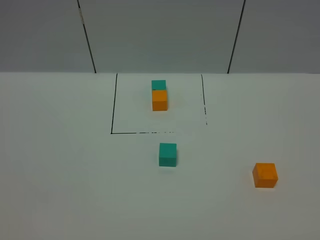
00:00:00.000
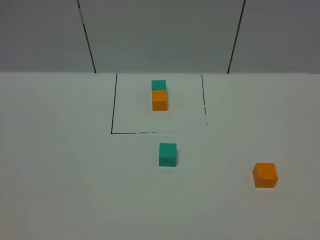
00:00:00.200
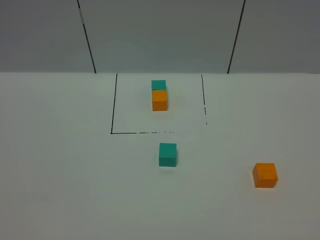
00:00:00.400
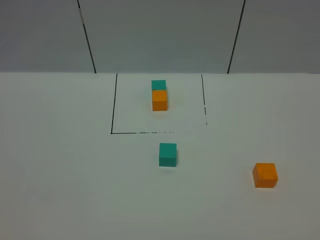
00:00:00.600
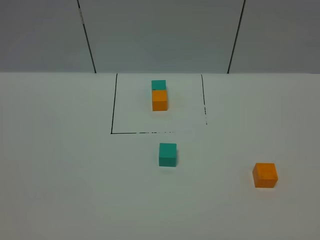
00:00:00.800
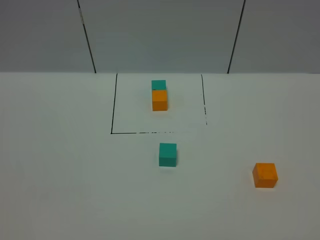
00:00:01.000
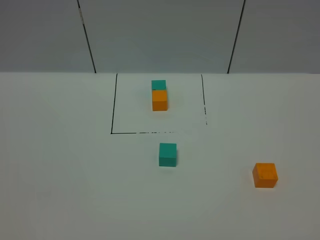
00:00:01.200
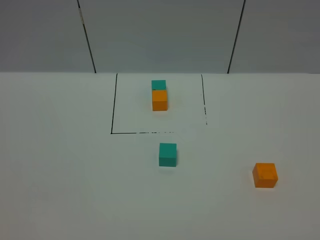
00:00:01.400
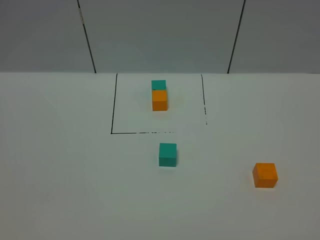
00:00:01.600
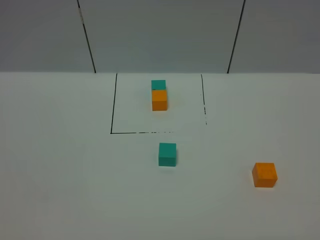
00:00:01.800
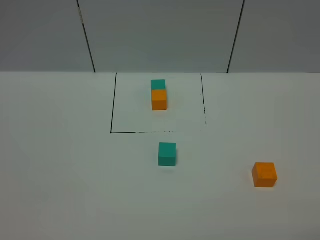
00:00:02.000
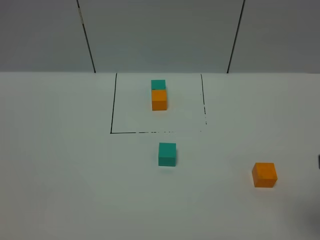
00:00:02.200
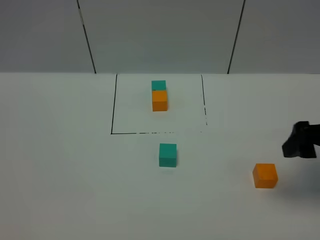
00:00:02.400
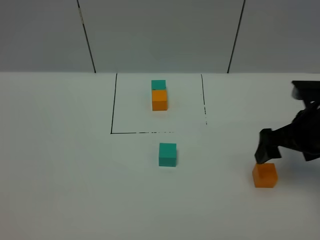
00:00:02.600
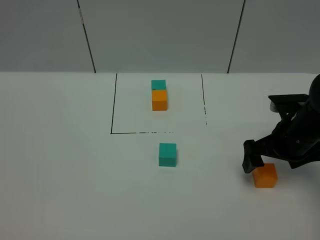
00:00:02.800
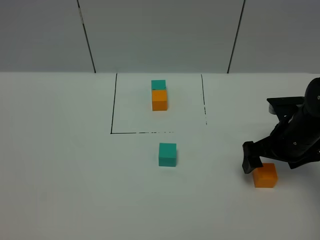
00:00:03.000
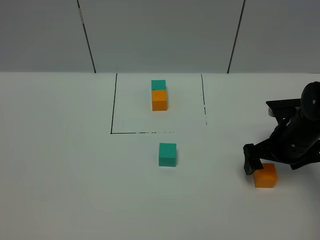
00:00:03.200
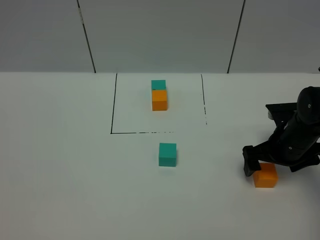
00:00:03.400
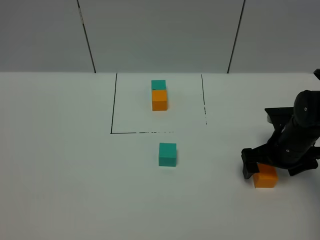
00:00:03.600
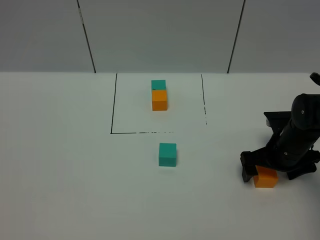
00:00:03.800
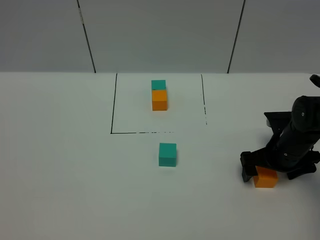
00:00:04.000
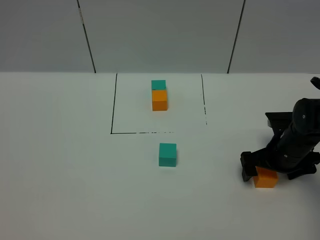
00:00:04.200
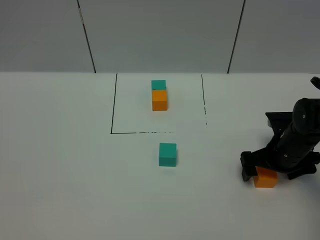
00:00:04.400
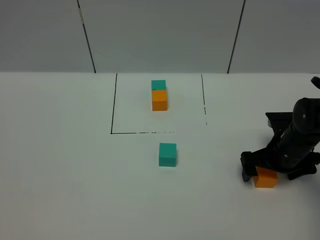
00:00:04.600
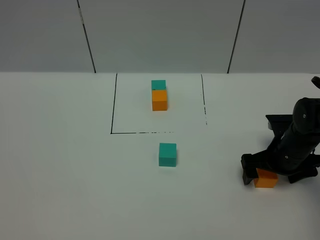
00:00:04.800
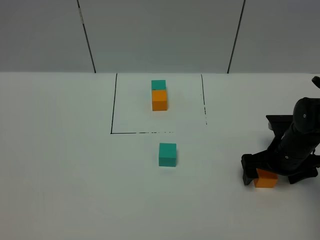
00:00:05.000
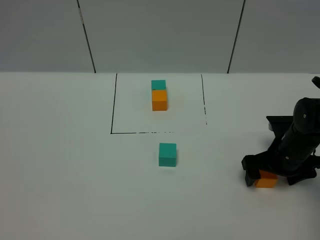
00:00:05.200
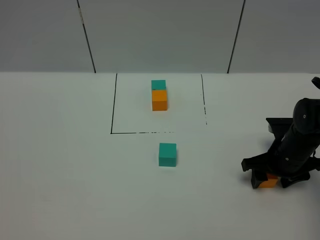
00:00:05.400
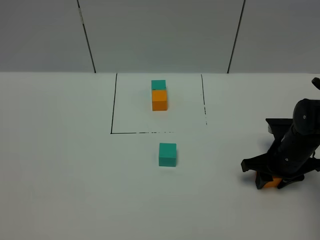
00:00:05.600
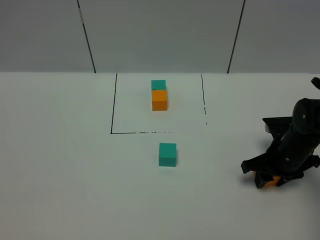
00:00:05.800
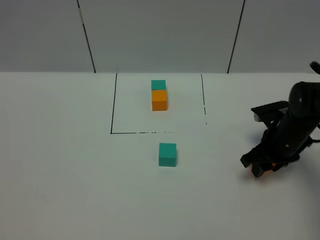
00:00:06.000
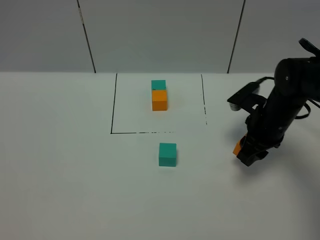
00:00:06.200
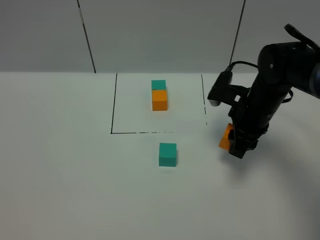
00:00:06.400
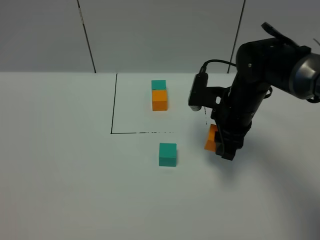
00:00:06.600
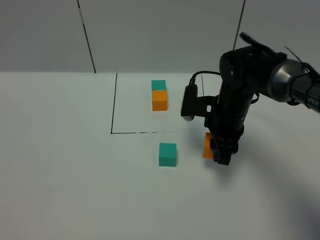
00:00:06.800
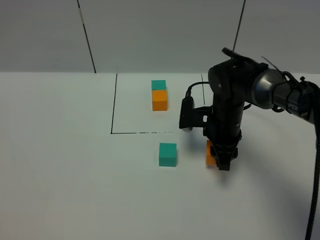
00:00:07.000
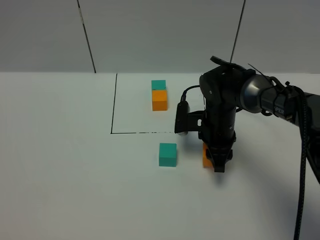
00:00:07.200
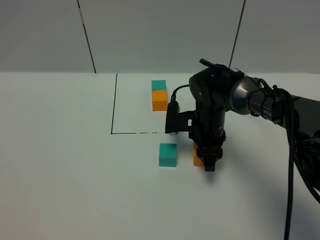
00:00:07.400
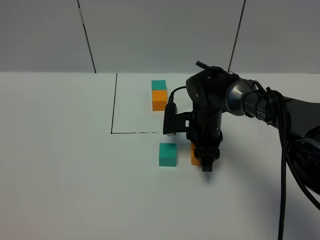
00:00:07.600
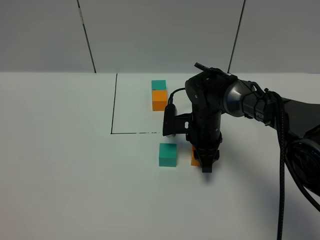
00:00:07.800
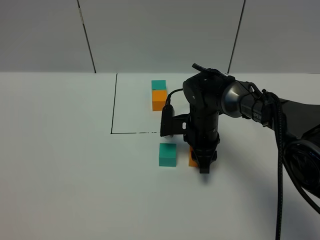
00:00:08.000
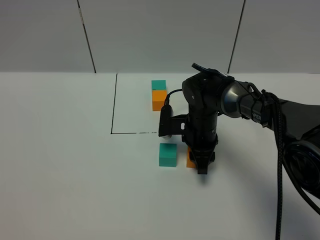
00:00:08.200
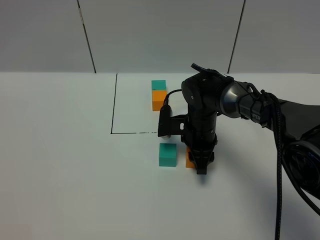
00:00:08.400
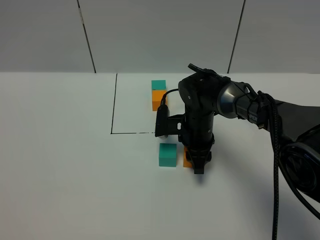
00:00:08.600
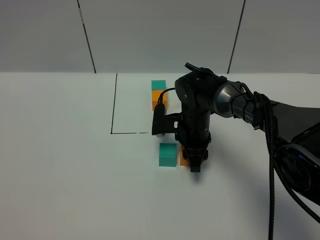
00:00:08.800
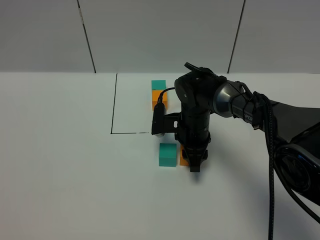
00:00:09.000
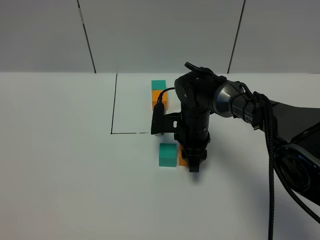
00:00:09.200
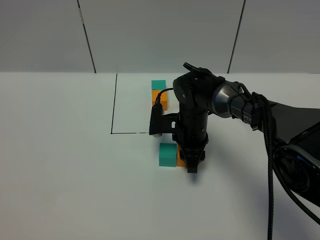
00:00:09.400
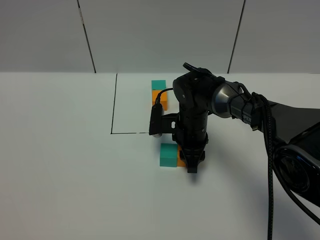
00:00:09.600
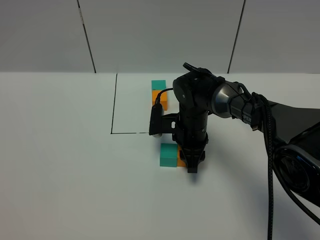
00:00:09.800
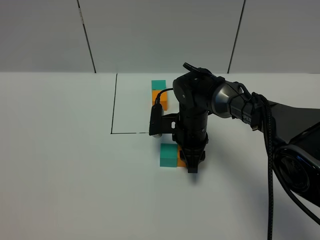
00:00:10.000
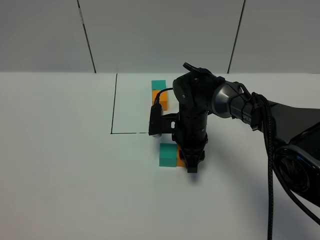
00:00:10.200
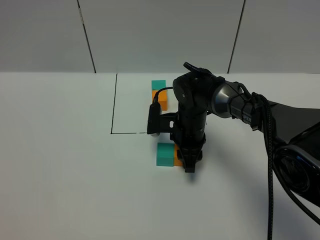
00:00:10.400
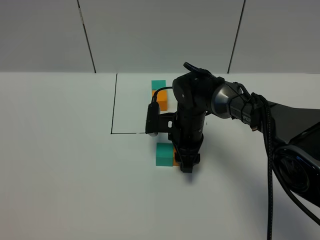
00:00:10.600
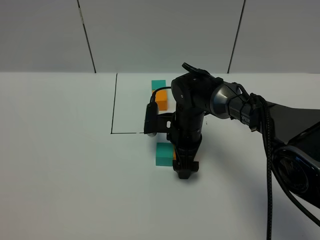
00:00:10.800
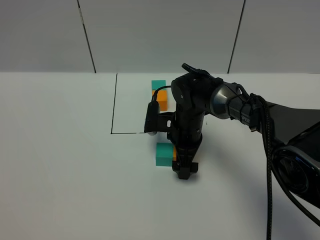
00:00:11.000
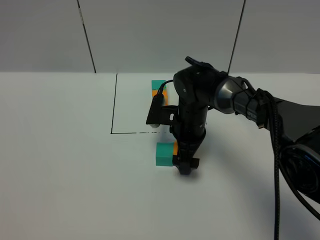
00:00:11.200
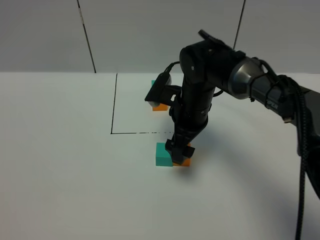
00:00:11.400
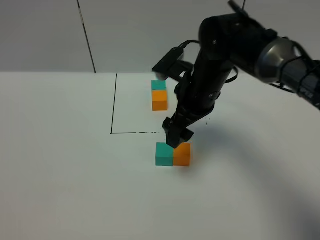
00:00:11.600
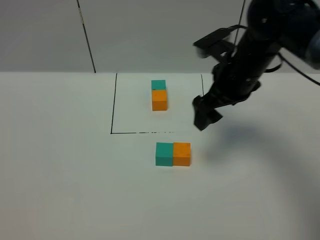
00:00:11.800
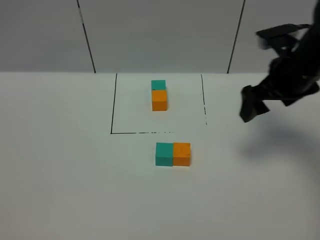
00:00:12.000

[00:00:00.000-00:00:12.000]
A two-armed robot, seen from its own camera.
Task of the whole recording: According to the building block template in front, assemble the scattered blocks together.
Step, 00:00:00.000 to 00:00:11.400: Put the orange cube on the right of the green cube.
00:00:00.000 to 00:00:01.600: The two grippers keep their place.
00:00:01.600 to 00:00:03.000: The right gripper goes about 35 cm forward.
00:00:03.000 to 00:00:04.400: The right gripper travels downward by approximately 5 cm.
00:00:04.400 to 00:00:06.000: The right gripper closes.
00:00:06.000 to 00:00:07.600: The right gripper moves to the left, some 15 cm.
00:00:07.600 to 00:00:09.000: The grippers stay close to where they were, moving slightly.
00:00:09.000 to 00:00:10.400: Neither gripper changes place.
00:00:10.400 to 00:00:12.000: The right gripper moves to the right and upward, roughly 25 cm, and opens.

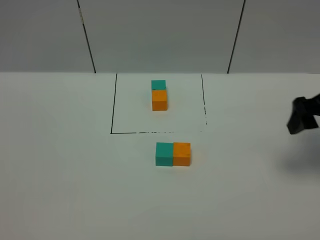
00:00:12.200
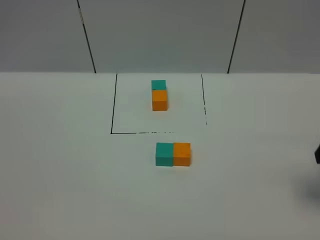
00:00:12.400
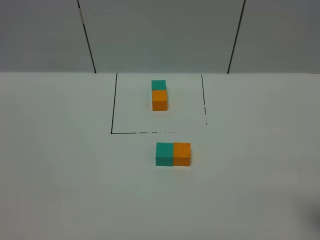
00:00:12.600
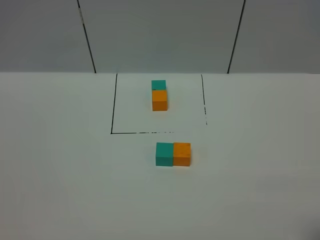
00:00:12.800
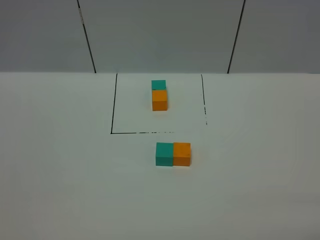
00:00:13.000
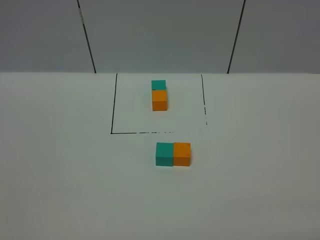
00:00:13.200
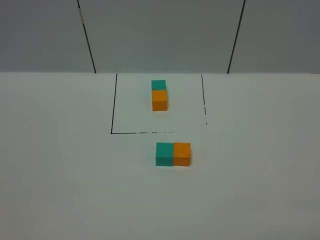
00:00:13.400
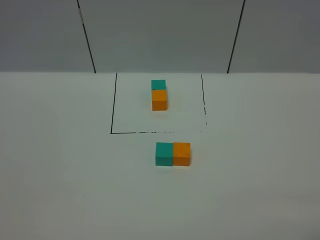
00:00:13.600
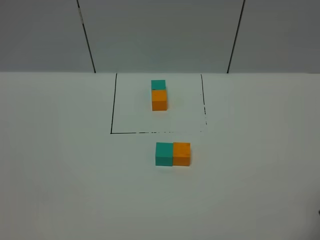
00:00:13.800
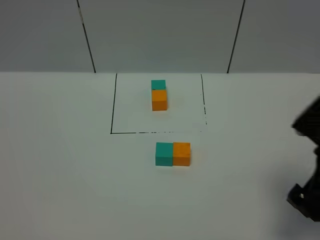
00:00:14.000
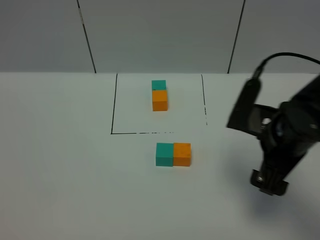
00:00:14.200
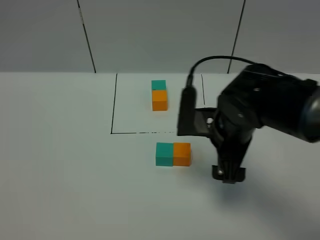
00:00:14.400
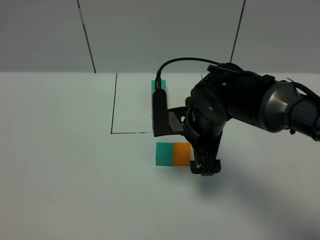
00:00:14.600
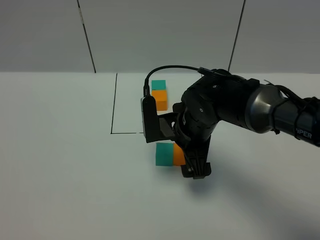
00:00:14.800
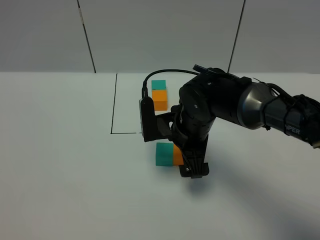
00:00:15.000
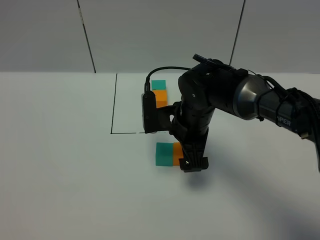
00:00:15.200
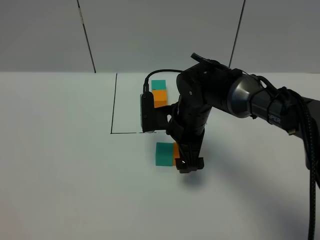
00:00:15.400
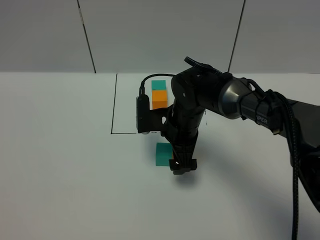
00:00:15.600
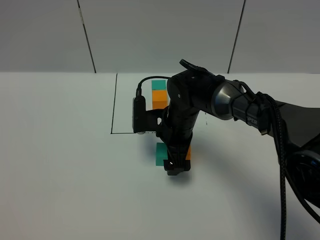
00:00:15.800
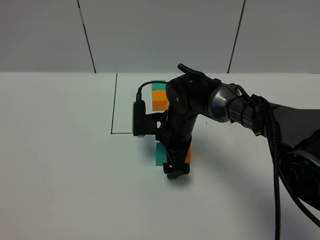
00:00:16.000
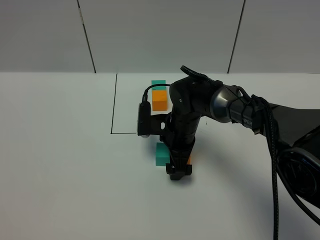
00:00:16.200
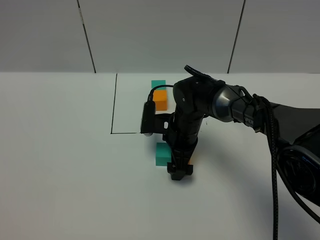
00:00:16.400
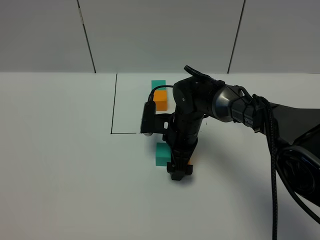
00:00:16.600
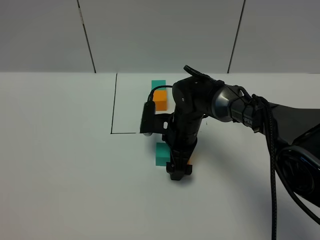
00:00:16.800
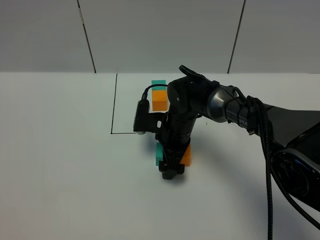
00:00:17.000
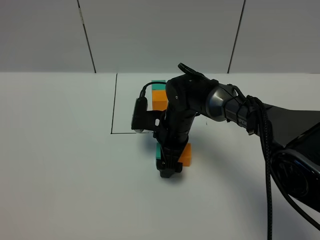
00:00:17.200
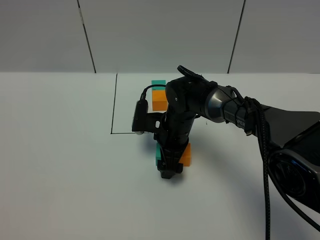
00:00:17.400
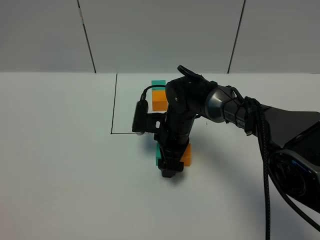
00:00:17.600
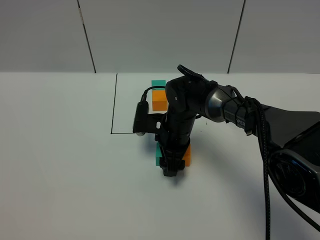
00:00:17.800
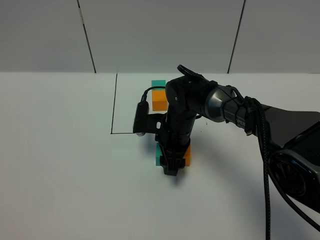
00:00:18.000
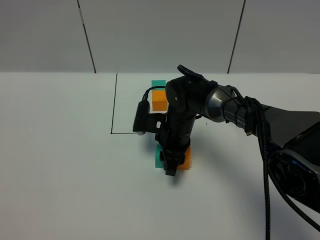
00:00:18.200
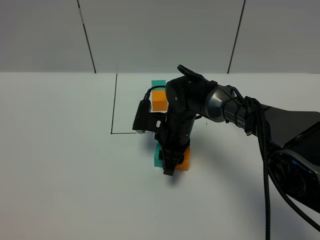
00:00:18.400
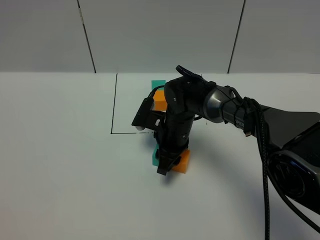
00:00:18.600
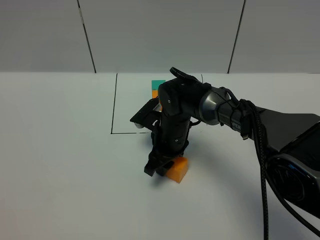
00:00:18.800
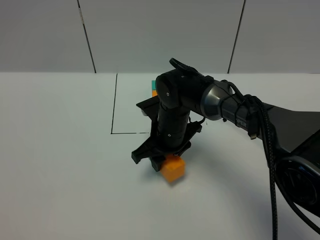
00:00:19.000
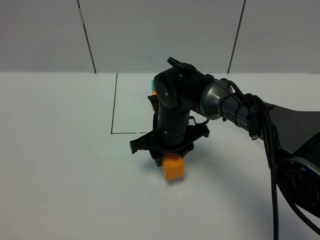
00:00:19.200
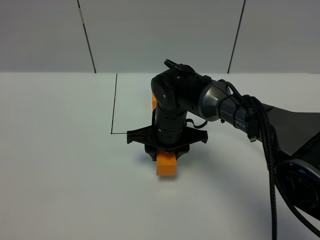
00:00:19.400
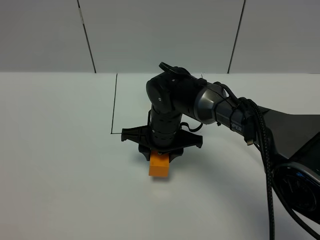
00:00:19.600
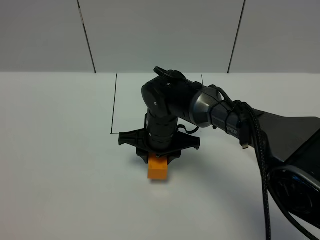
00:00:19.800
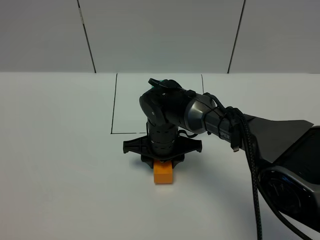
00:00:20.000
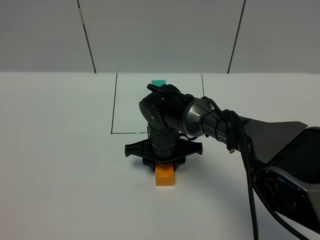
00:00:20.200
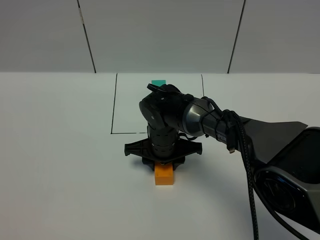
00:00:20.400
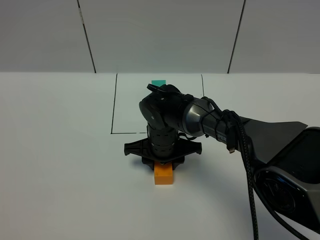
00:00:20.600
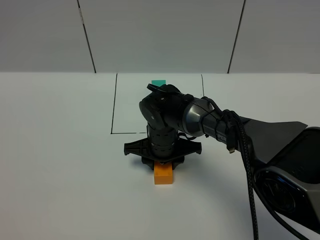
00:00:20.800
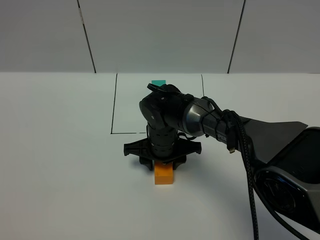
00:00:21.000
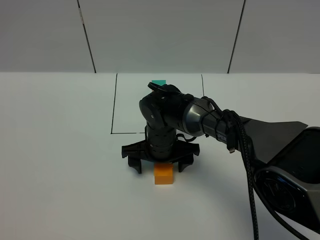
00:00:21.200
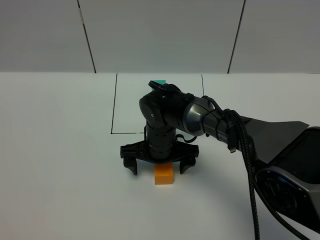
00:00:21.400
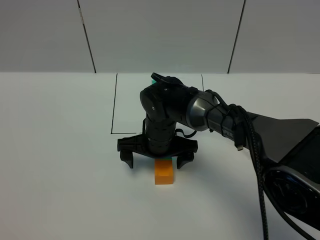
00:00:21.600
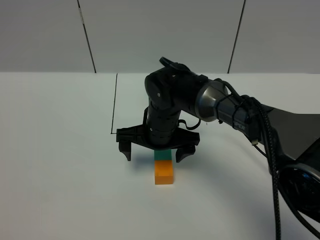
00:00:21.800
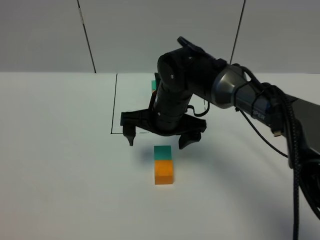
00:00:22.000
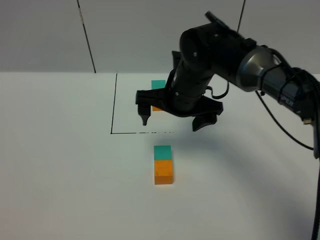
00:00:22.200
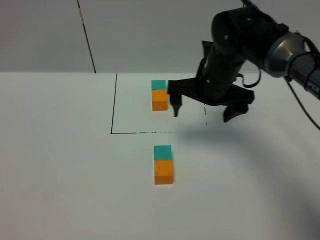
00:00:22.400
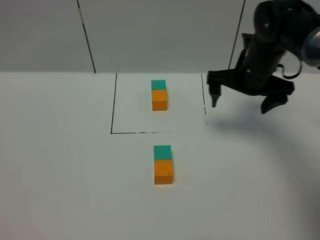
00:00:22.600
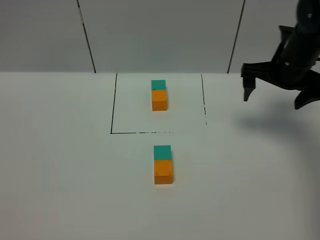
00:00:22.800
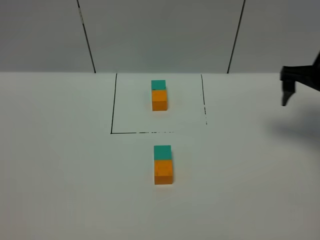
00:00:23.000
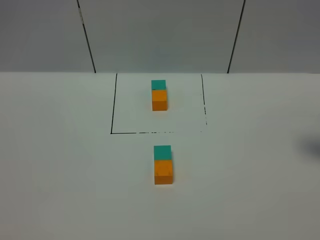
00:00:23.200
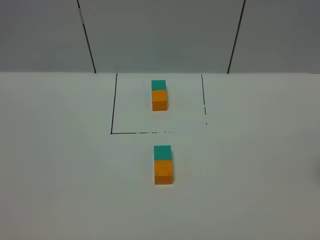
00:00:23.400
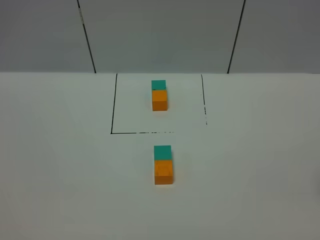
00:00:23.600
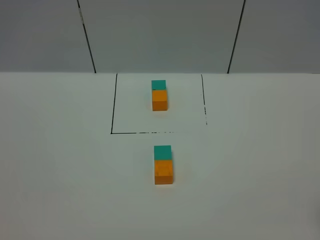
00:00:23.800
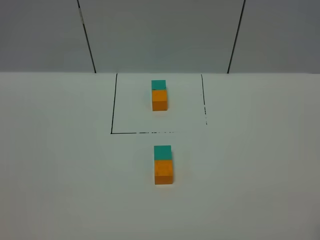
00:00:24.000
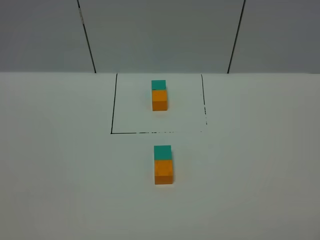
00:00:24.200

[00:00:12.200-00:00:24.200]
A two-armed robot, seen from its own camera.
Task of the whole recording: According to the building block template in front, assemble the scattered blocks together.
Step, 00:00:12.200 to 00:00:21.400: Adjust the pose of the building blocks.
00:00:12.200 to 00:00:13.800: The right gripper goes some 15 cm backward.
00:00:13.800 to 00:00:15.200: The right gripper heads to the left, forward and downward, covering approximately 35 cm.
00:00:15.200 to 00:00:16.600: The right gripper heads downward, covering approximately 5 cm.
00:00:16.600 to 00:00:18.200: The right gripper closes.
00:00:18.200 to 00:00:19.800: The right gripper changes place by some 5 cm.
00:00:19.800 to 00:00:21.200: The right gripper opens.
00:00:21.200 to 00:00:22.600: The right gripper heads to the right and upward, covering roughly 25 cm.
00:00:22.600 to 00:00:24.200: The right gripper moves backward, some 35 cm.
